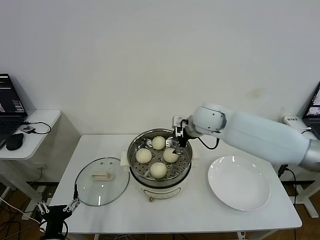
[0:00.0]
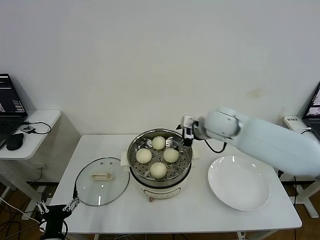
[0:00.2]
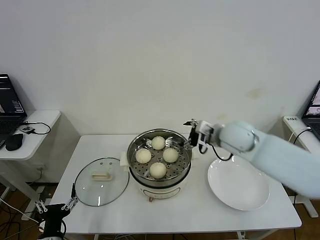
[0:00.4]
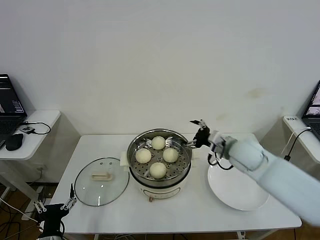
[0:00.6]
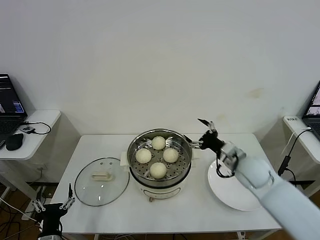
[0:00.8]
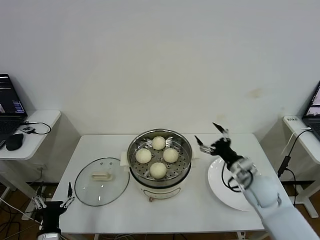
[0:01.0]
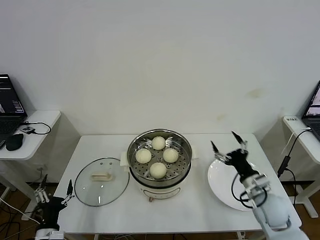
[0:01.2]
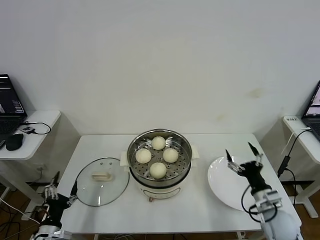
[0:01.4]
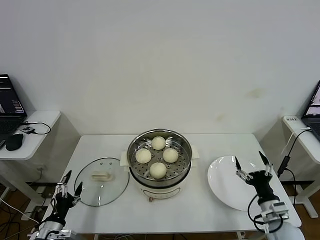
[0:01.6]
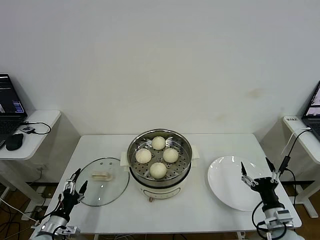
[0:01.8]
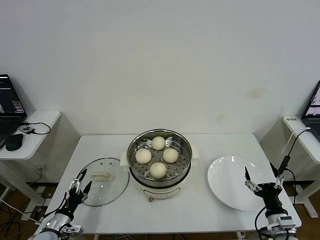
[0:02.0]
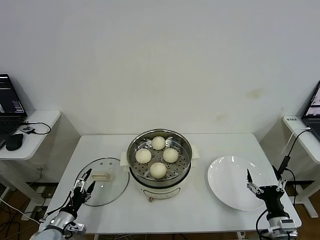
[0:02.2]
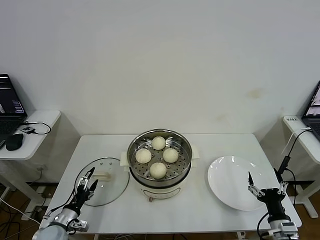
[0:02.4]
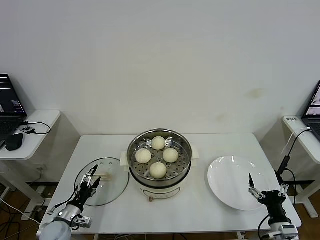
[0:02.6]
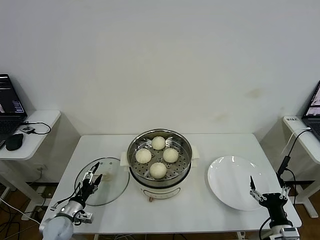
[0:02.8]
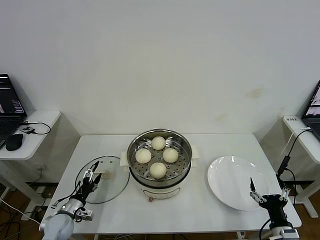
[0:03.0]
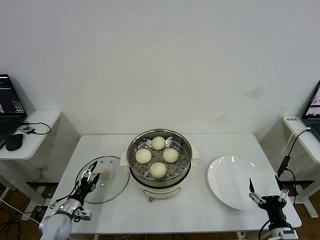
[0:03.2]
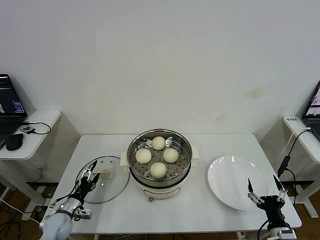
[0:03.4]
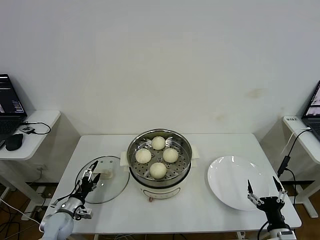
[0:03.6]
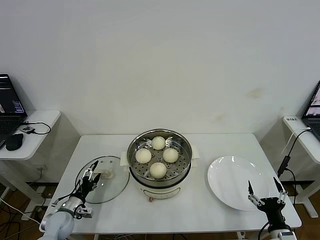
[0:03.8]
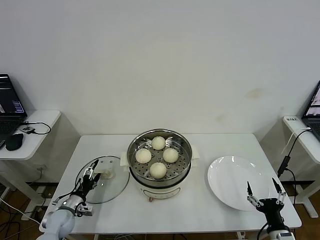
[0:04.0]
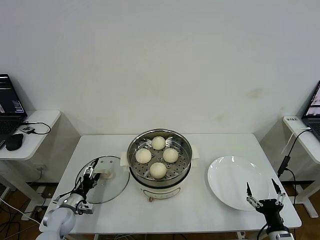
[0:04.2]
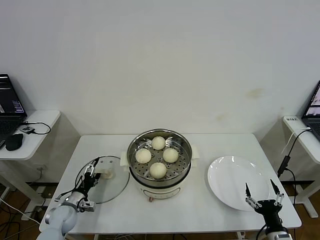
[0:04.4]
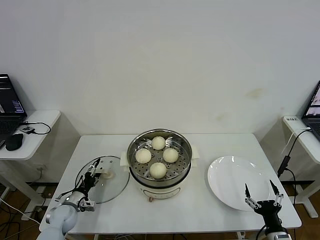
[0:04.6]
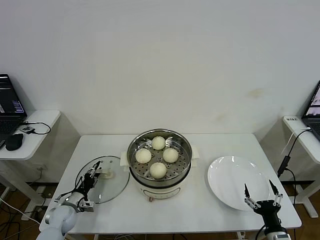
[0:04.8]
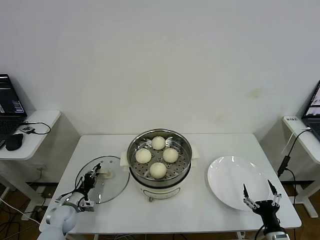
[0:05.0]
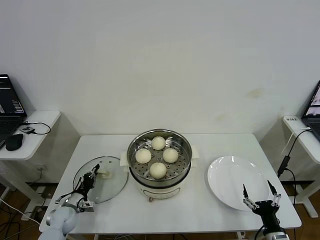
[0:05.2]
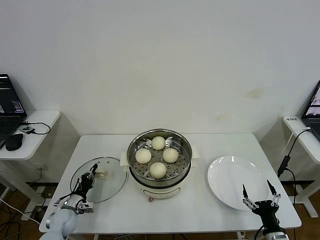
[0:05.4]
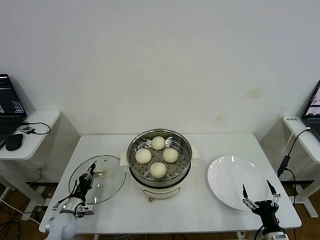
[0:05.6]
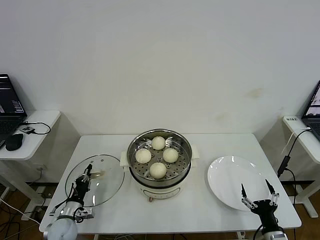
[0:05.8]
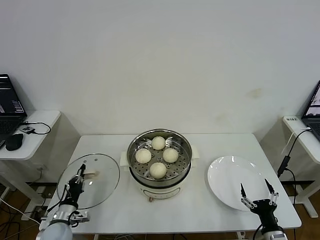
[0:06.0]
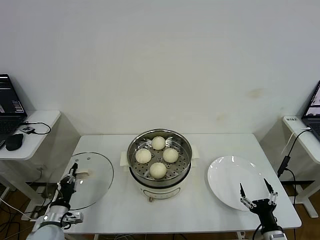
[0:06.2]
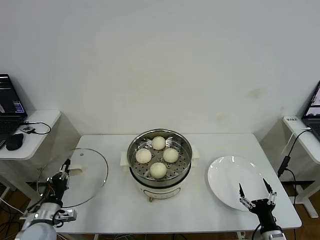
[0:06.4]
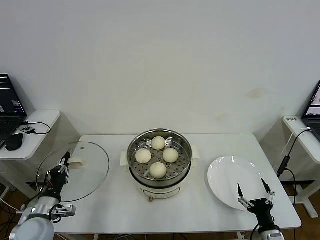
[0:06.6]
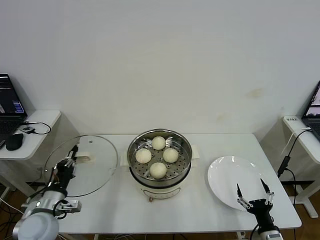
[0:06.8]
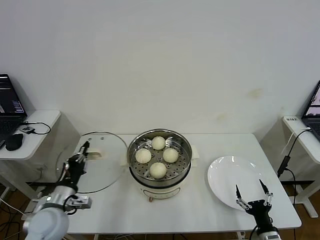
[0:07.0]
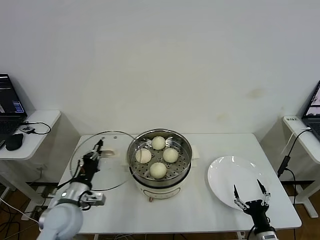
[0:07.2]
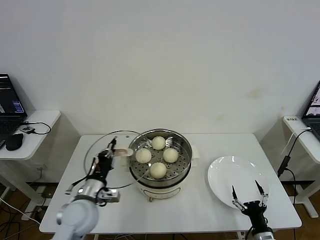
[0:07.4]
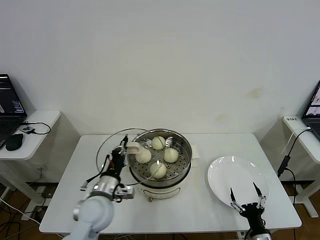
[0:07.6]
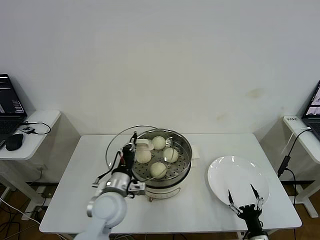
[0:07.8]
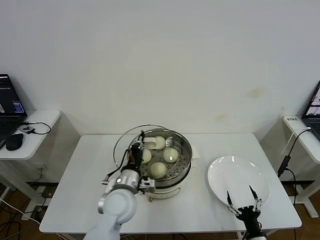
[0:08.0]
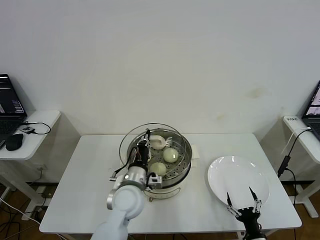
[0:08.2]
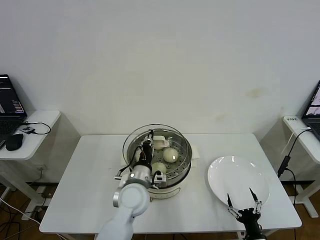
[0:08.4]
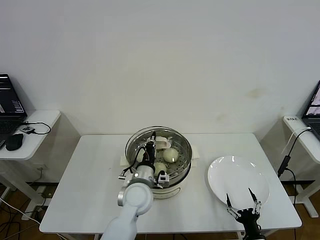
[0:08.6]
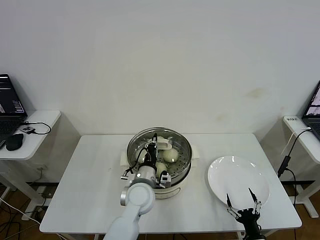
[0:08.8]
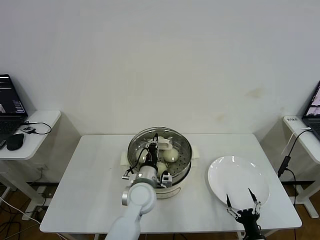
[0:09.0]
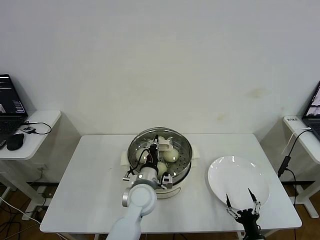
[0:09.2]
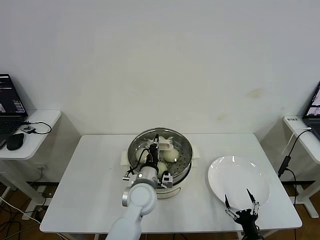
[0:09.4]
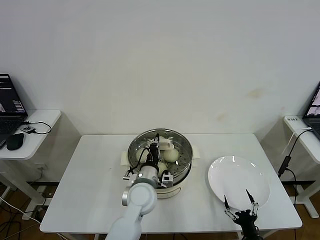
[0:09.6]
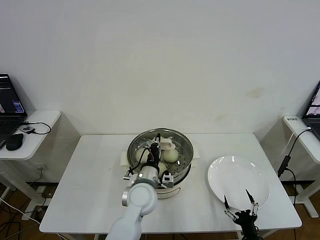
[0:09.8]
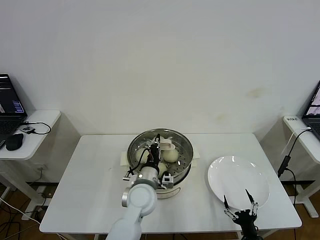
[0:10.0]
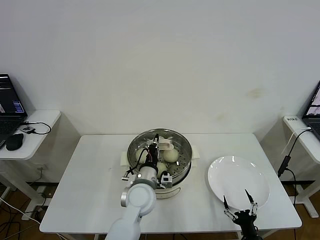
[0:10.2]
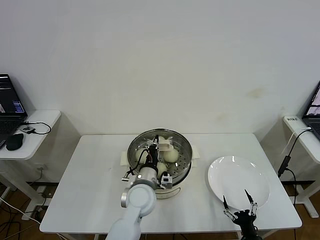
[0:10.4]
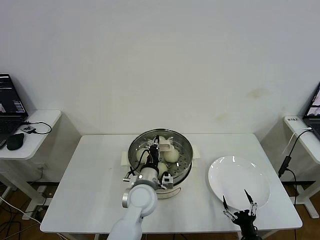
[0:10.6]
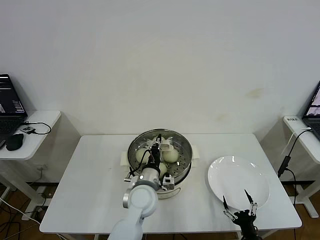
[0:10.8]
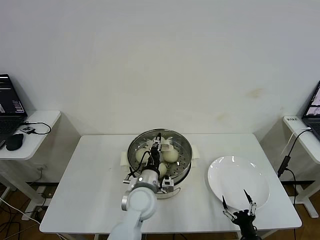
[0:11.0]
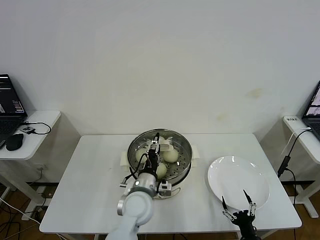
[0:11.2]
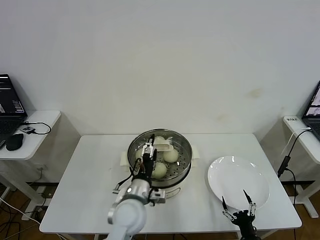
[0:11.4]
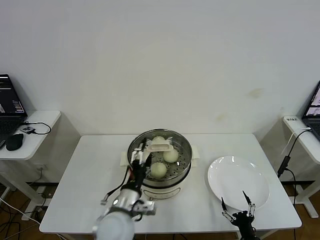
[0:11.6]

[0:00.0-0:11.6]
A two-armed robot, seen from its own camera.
Step, 0:00.0 to 0:05.2: Grasp the pot lid with left gripper.
Step, 0:05.6 to 0:11.0: Place the pot lid on the steamer with left gripper.
0:00.0 to 0:01.4: The right gripper moves backward, downward and to the right, roughly 40 cm, while the left gripper heads to the left, covering roughly 5 cm.
0:01.4 to 0:02.8: The right gripper moves backward, approximately 10 cm. Meanwhile the left gripper is displaced forward by some 10 cm.
0:02.8 to 0:04.4: The left gripper moves approximately 5 cm.
0:04.4 to 0:05.8: The left gripper closes its fingers.
0:05.8 to 0:07.2: The left gripper heads upward and to the right, covering about 20 cm.
0:07.2 to 0:08.8: The left gripper moves to the right, approximately 20 cm.
0:08.8 to 0:10.2: Both grippers stay about where they are.
0:10.2 to 0:11.6: The left gripper shifts approximately 10 cm backward, and opens up.

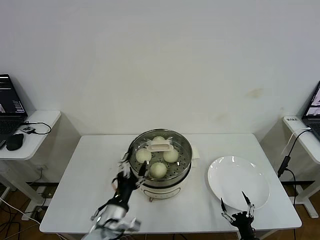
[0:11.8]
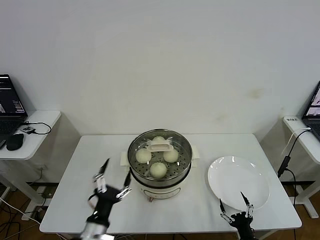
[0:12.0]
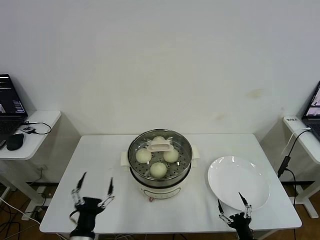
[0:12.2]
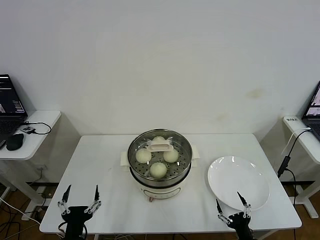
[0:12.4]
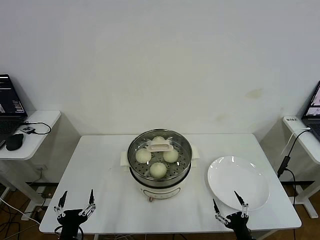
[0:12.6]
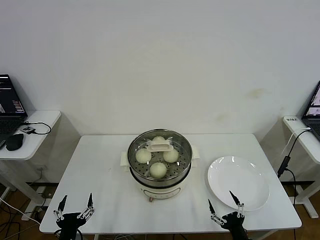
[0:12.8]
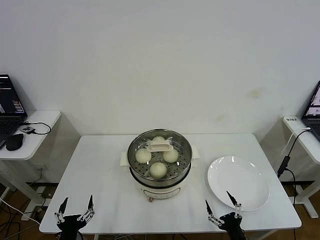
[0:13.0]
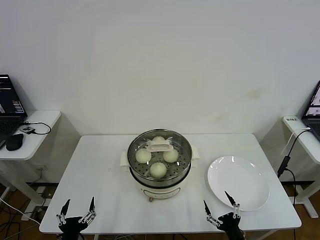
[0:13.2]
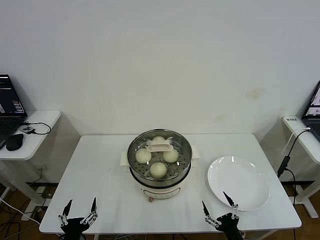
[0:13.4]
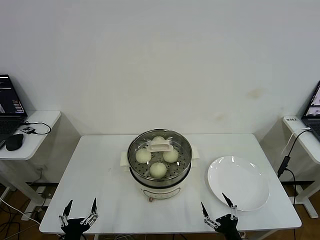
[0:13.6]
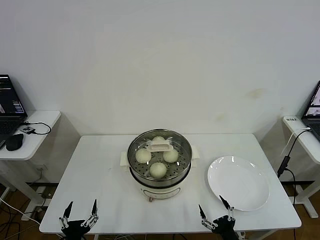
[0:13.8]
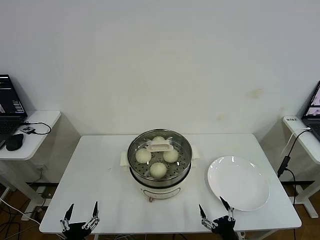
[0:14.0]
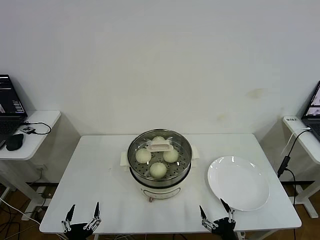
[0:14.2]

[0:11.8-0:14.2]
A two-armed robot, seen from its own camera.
0:11.8 to 0:13.0: The left gripper goes approximately 20 cm to the left, backward and downward. The right gripper shifts by roughly 5 cm.
0:13.0 to 0:14.2: There are only small adjustments of the grippers.
